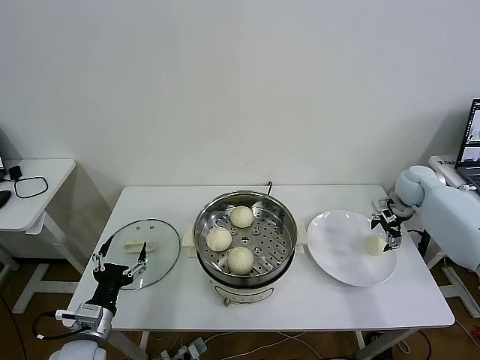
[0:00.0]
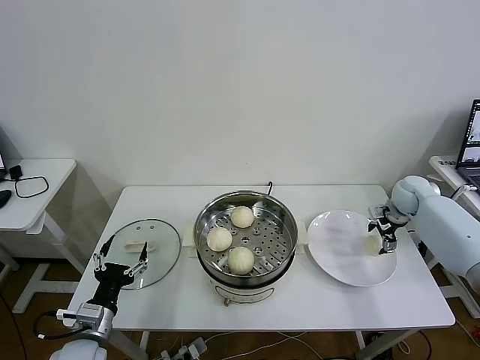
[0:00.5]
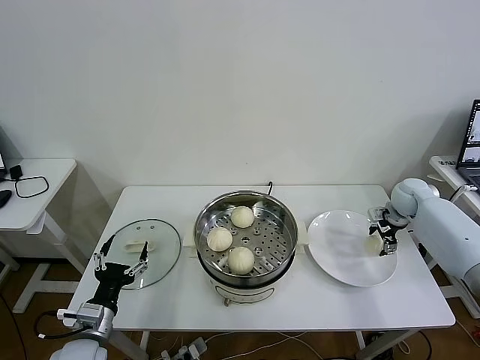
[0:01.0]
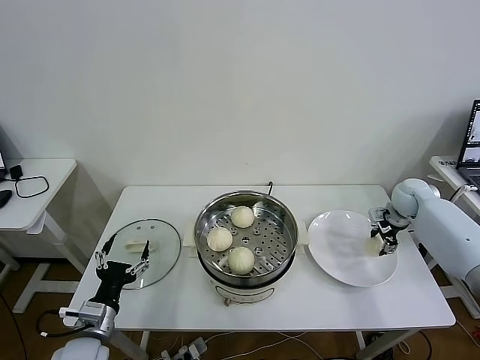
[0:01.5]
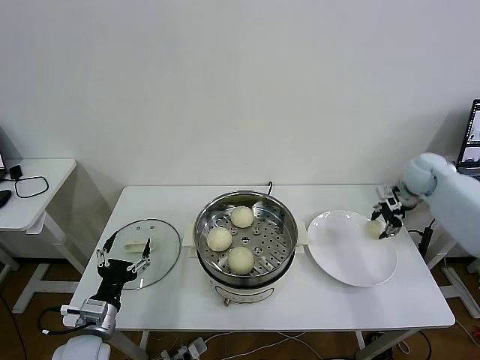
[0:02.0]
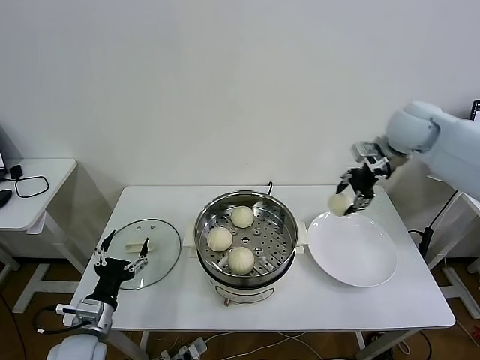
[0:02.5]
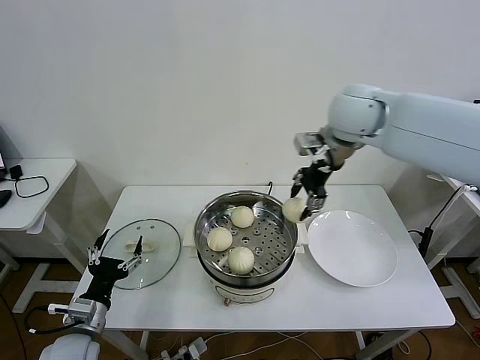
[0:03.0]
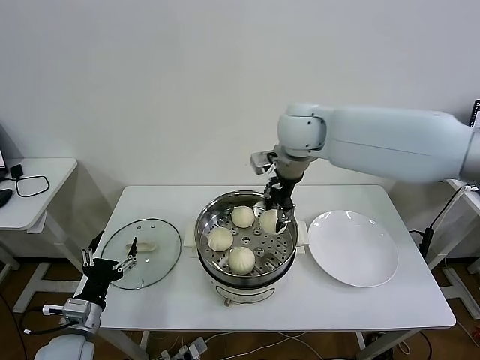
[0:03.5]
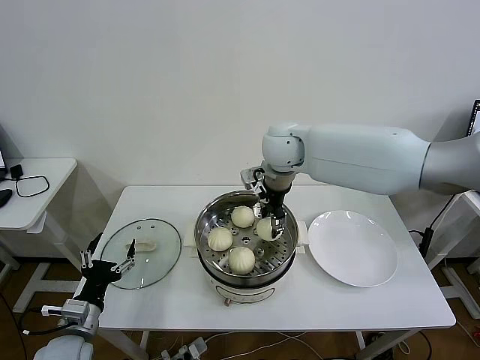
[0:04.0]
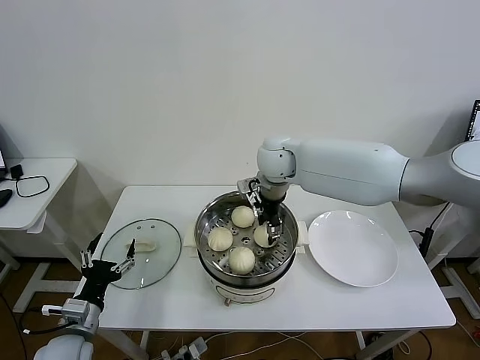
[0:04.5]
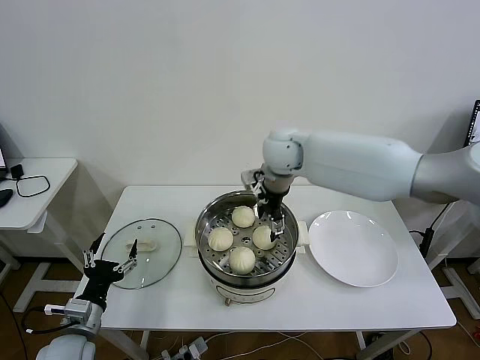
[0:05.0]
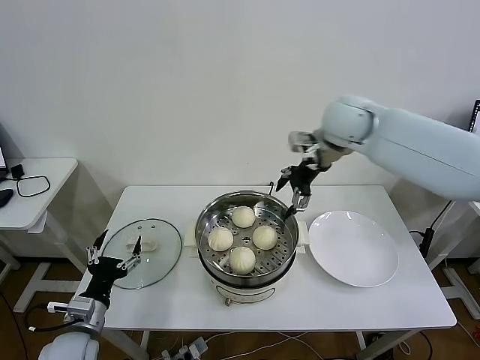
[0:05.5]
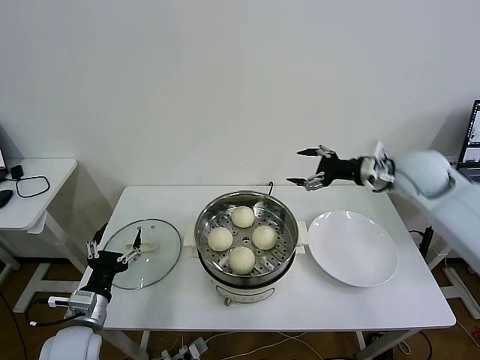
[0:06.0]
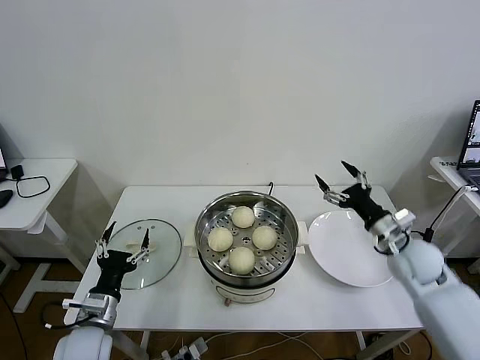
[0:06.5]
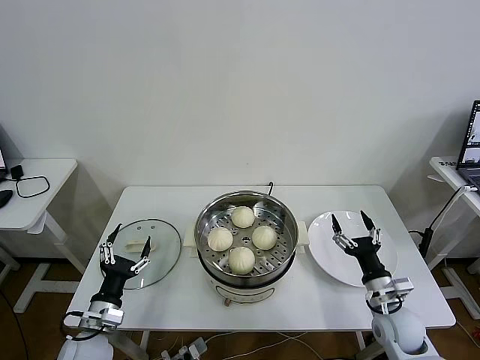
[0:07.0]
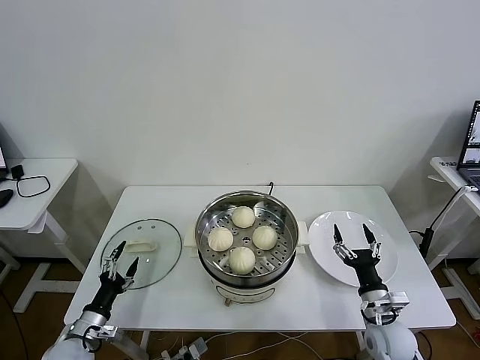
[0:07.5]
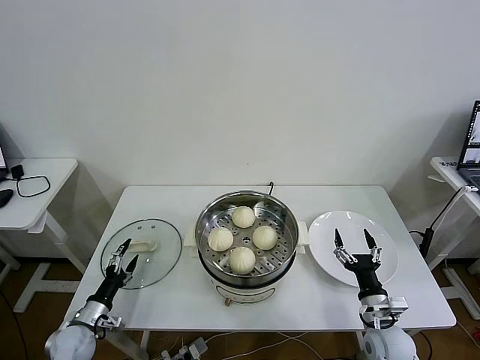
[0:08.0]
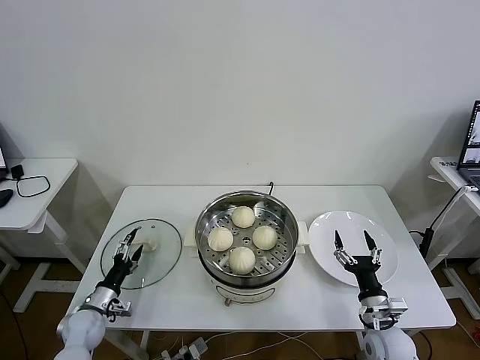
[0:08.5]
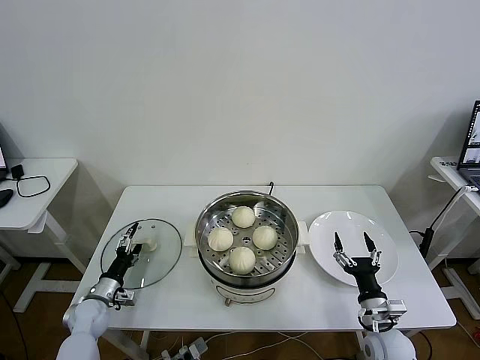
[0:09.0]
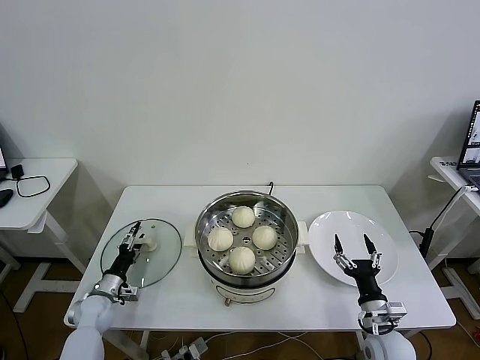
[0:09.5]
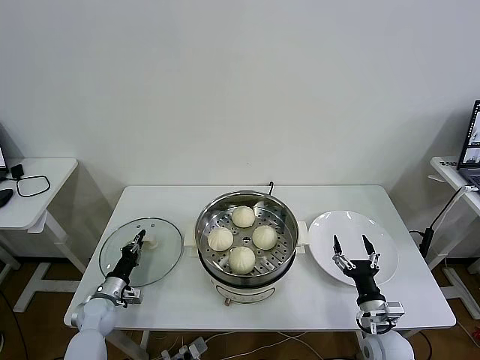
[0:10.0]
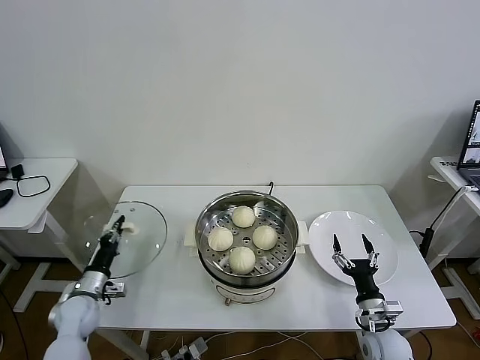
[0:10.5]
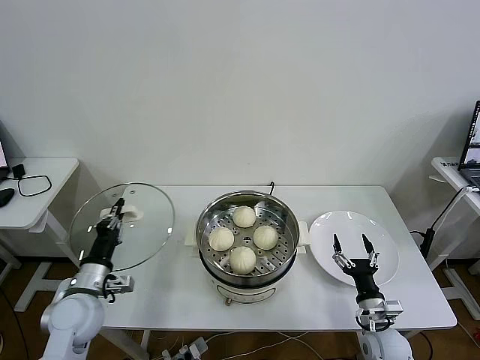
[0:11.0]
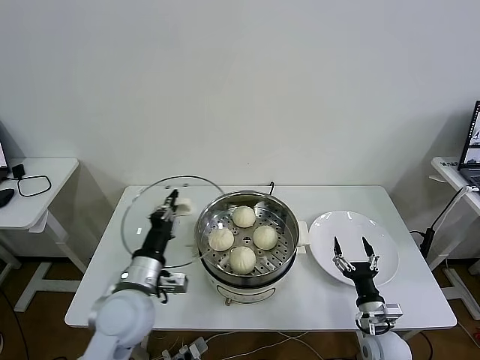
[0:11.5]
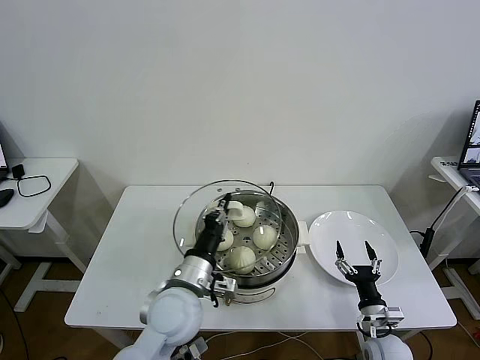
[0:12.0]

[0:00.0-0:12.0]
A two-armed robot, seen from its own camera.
Task of the whole recording: take steamed baozi put them in steamer then cover it.
Step, 0:01.5 to 0:04.5: Place the baozi on the steamer with right gripper.
Step, 0:05.0 to 0:09.5: Grasp the pot lid with left gripper.
0:00.0 to 0:02.0: The right gripper moves upward, about 5 cm, and closes up.
0:02.0 to 0:04.0: The right gripper is displaced to the left by roughly 35 cm.
0:04.0 to 0:06.0: The right gripper goes some 25 cm to the right, and opens up.
0:06.0 to 0:08.0: The right gripper travels downward and backward by about 40 cm, while the left gripper travels downward and to the left by some 15 cm.
0:08.0 to 0:10.0: The left gripper goes approximately 10 cm forward, and closes its fingers.
0:10.0 to 0:12.0: The left gripper moves to the right and upward, about 35 cm.

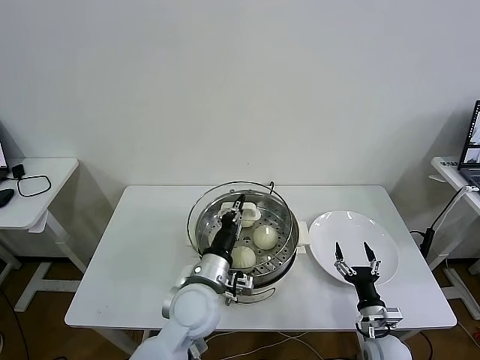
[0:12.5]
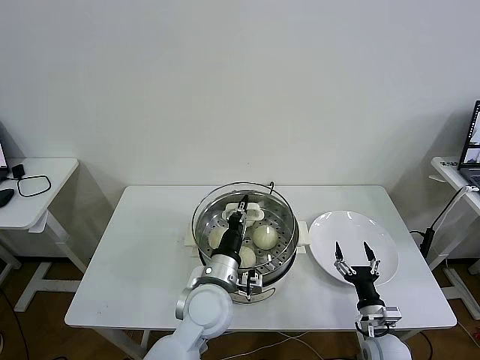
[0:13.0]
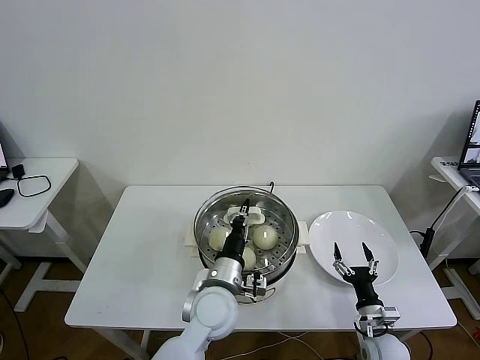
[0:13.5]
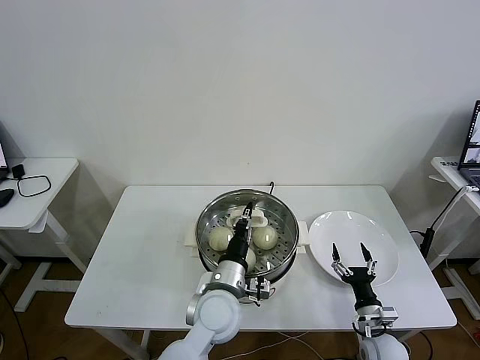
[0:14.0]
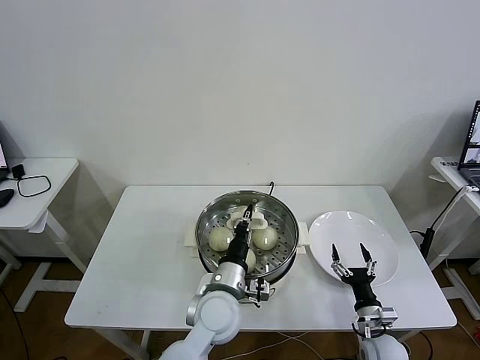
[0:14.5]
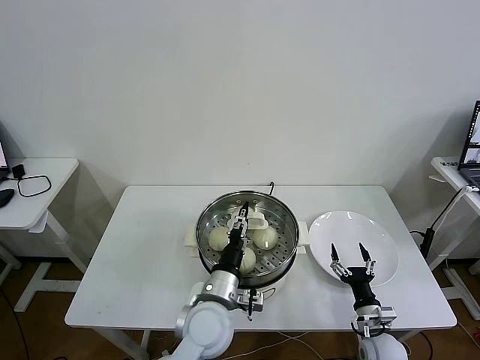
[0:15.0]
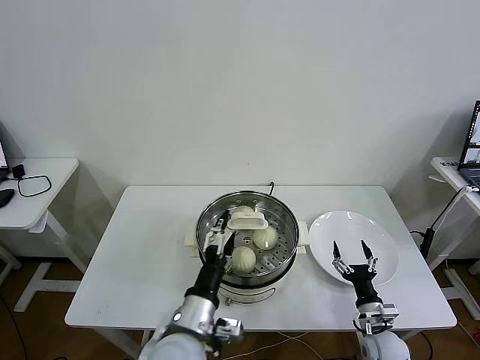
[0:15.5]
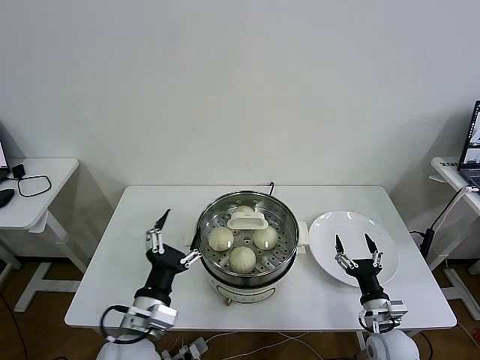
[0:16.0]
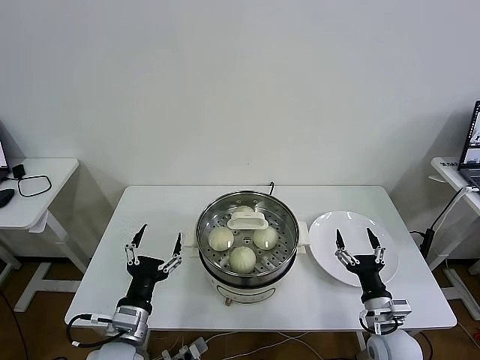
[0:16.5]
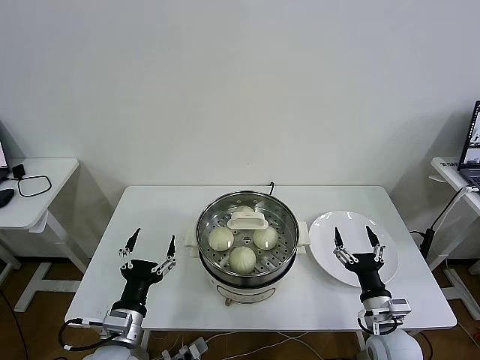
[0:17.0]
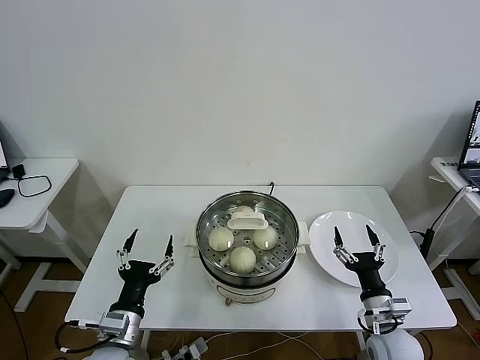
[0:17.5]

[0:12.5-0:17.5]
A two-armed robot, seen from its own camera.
Task of the whole recording: take steamed baozi put them in steamer then cover it.
Step, 0:12.5 to 0:14.5: Place the pot lid on the steamer with left gripper.
0:12.5 to 0:15.0: The left gripper opens up.
0:15.0 to 0:17.5: The left gripper shifts some 20 cm to the left and backward, and opens its fingers; the right gripper travels upward by some 10 cm.
